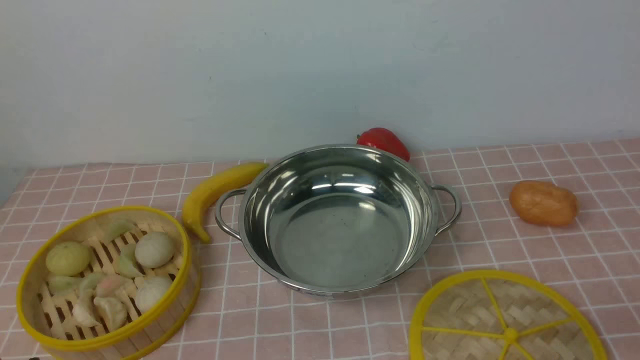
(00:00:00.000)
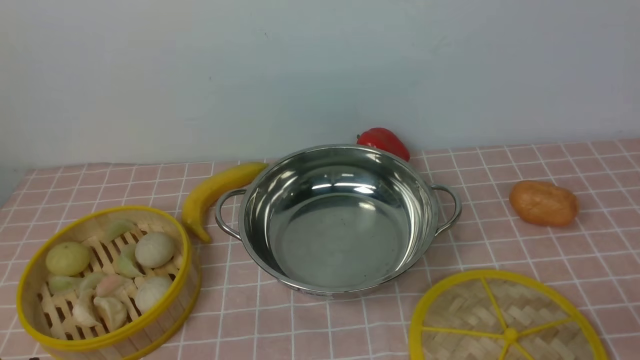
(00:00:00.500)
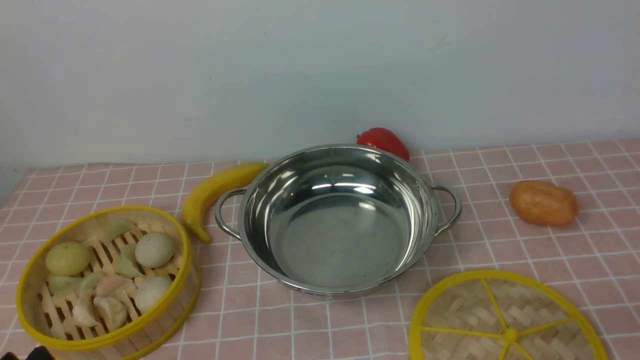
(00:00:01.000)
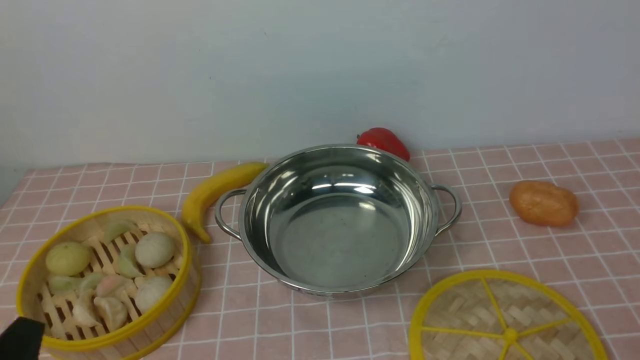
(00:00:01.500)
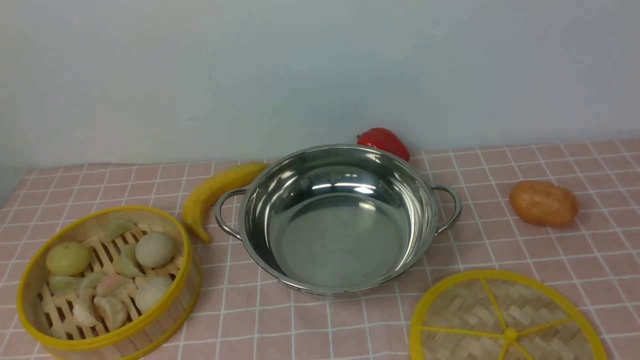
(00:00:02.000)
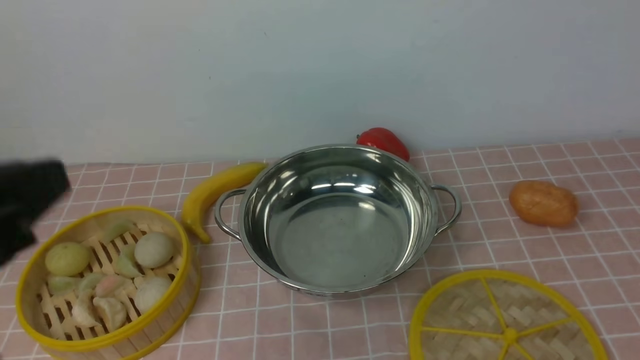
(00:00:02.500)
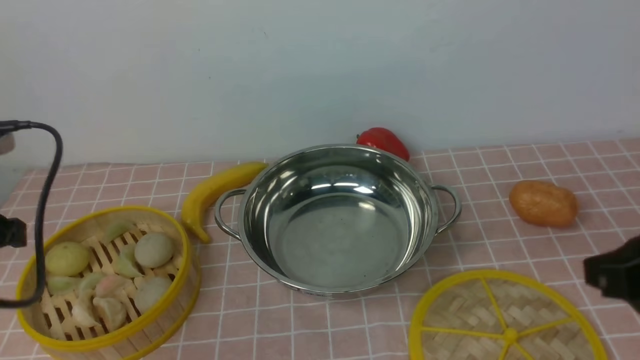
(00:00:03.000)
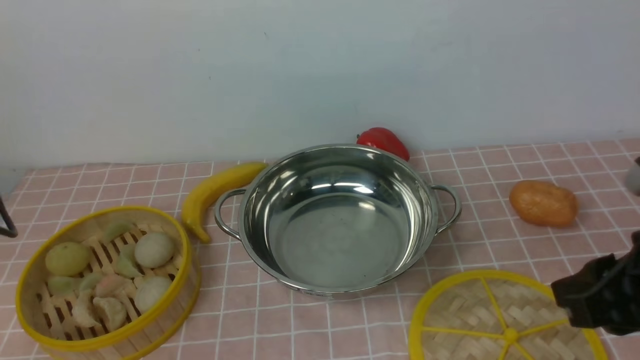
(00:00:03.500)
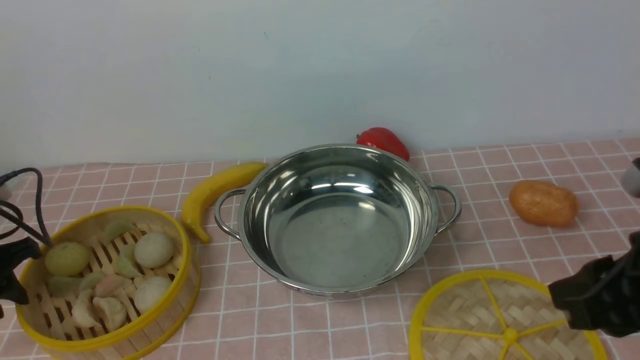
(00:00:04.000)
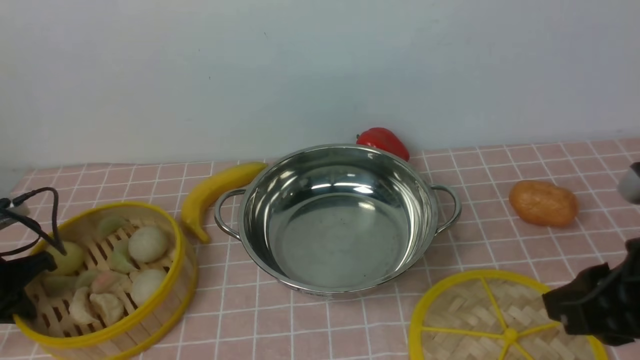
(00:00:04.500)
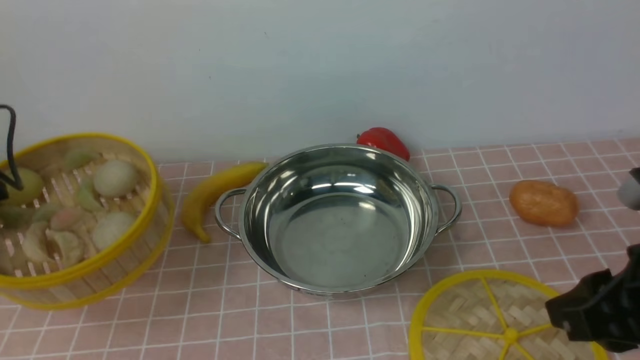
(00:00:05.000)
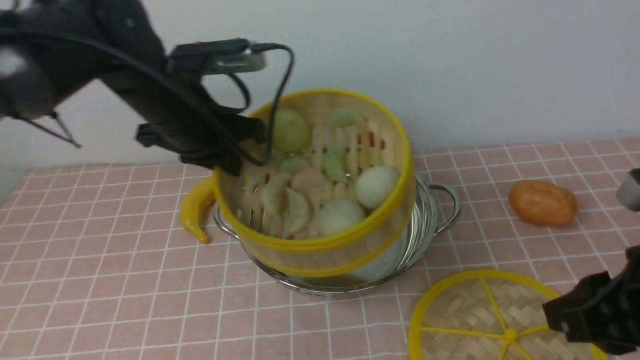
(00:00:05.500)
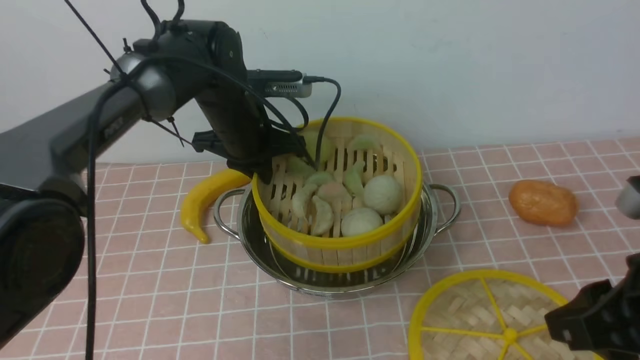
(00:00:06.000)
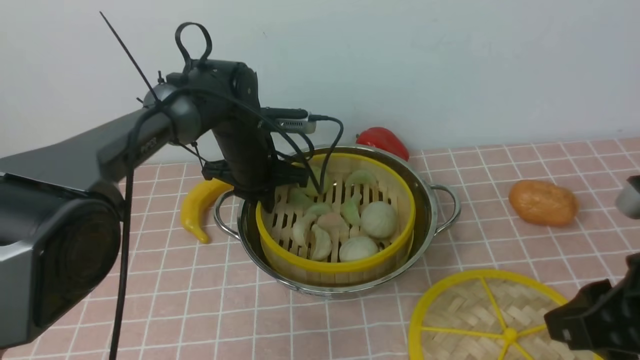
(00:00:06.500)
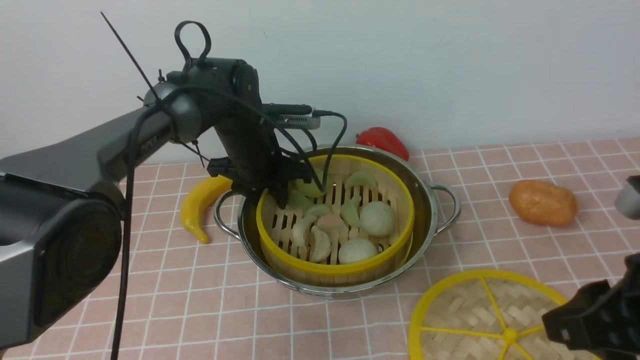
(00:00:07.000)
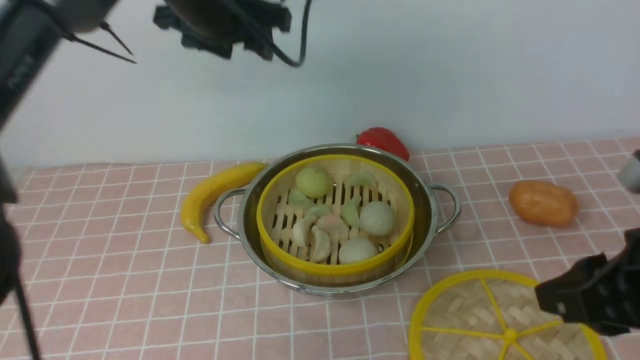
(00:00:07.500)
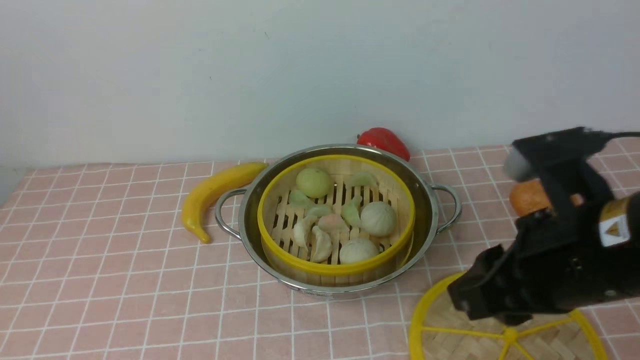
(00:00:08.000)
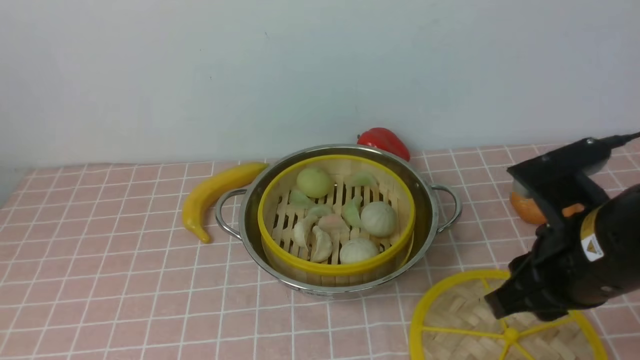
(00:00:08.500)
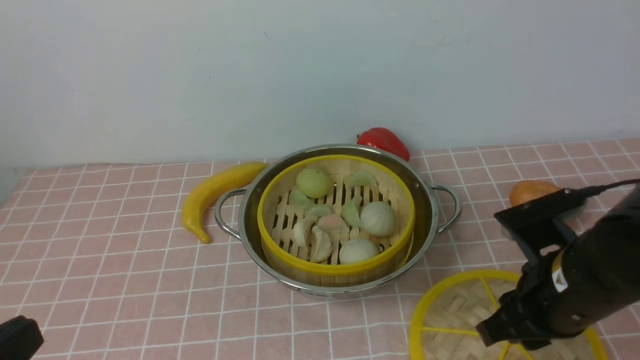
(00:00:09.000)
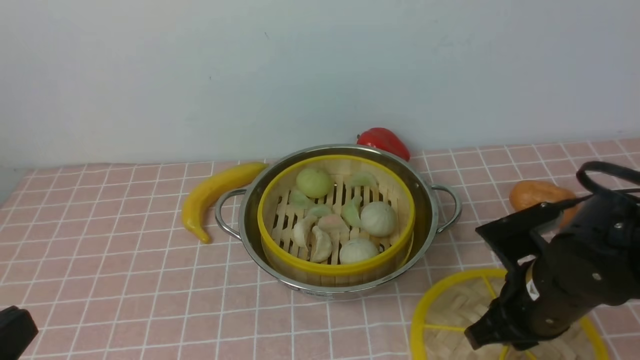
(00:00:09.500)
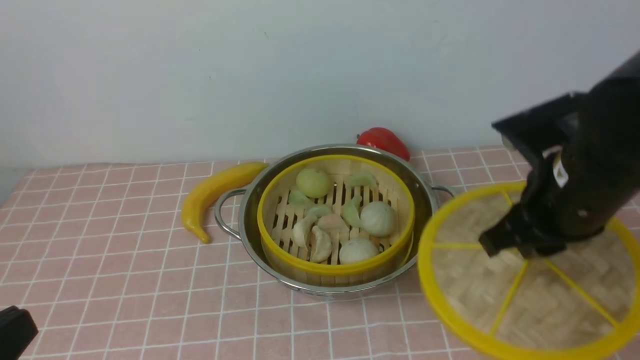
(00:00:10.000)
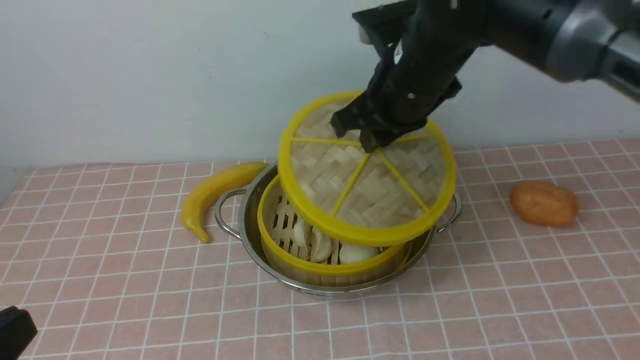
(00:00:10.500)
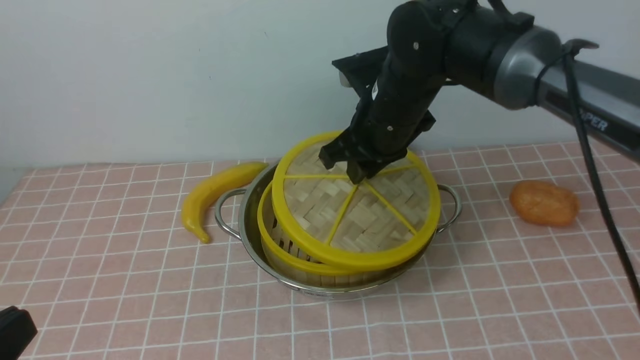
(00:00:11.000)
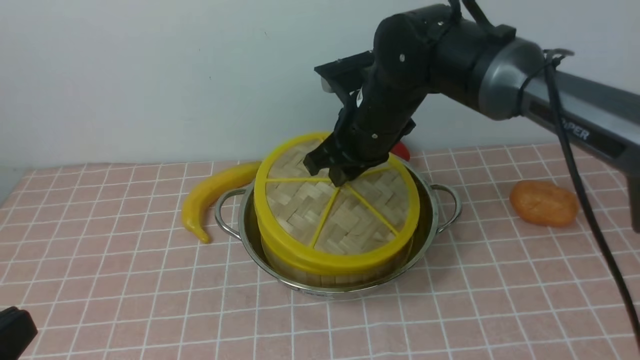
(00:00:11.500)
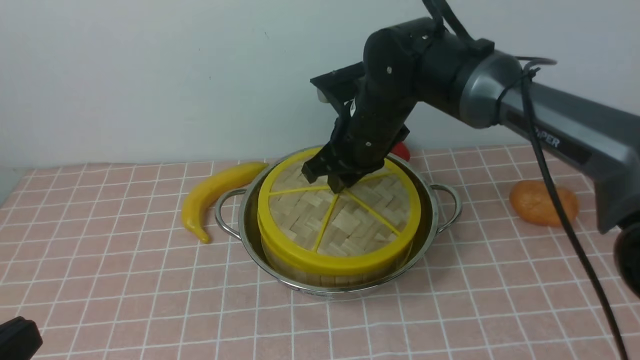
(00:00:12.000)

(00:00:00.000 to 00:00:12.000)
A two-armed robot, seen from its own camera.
Task of the whole recording: place the steamer in the pot on the pink tablecloth, and put the lid on the steamer.
Step, 00:00:00.000 - 00:00:04.500: use the left arm to lift the steamer closest to it.
Step, 00:00:05.000 - 00:00:07.000: use the left arm to put the steamer into the iron steamer pot in the middle.
Step, 00:00:07.500 - 00:00:09.500: use the right arm to lift the lid of the steamer.
00:00:02.000 - 00:00:04.000: The left gripper travels forward, downward and to the left by about 35 cm. Meanwhile the right gripper heads forward, to the left and downward, covering roughly 15 cm.
00:00:04.000 - 00:00:06.000: The left gripper is displaced to the right and forward by approximately 35 cm, and closes.
00:00:06.000 - 00:00:08.000: The right gripper travels to the left by roughly 5 cm; the left gripper travels upward and backward by approximately 50 cm, and opens, then closes once more.
00:00:08.000 - 00:00:10.000: The right gripper moves forward, some 10 cm, and reaches roughly 10 cm downward, then returns. Meanwhile the left gripper moves downward and backward, about 30 cm.
00:00:10.000 - 00:00:12.000: The right gripper heads forward and to the left, covering some 20 cm.

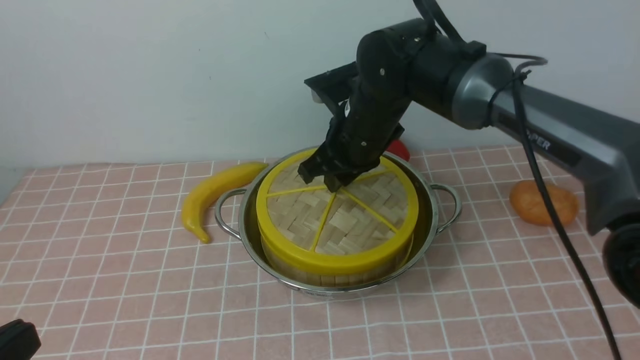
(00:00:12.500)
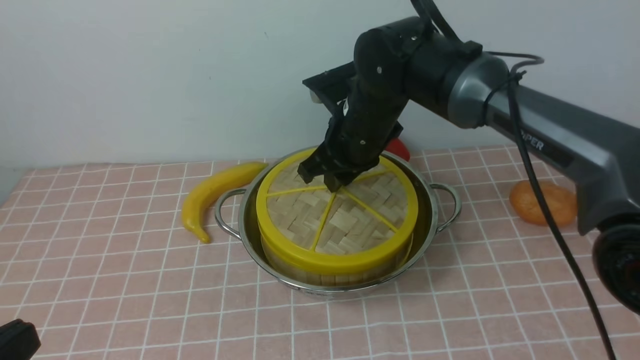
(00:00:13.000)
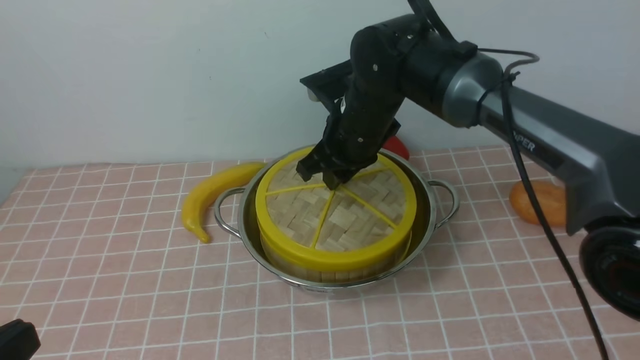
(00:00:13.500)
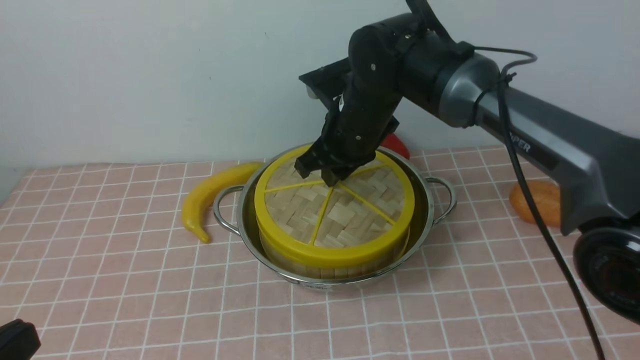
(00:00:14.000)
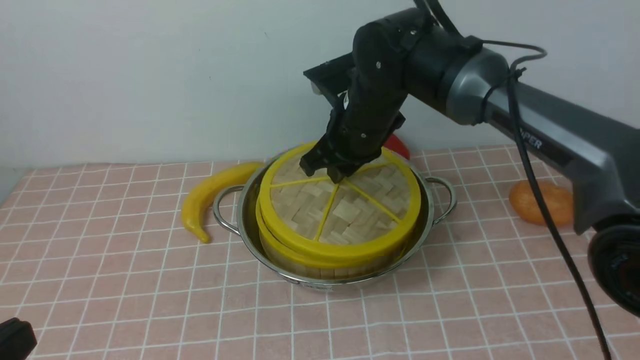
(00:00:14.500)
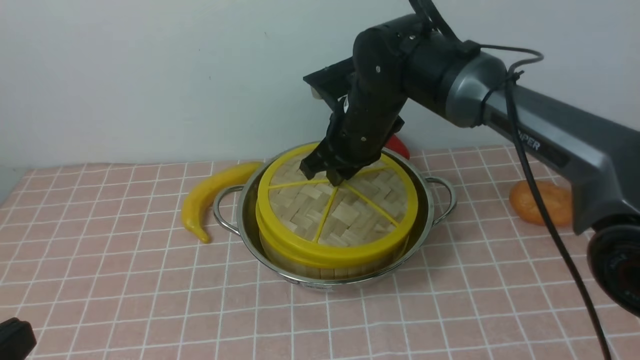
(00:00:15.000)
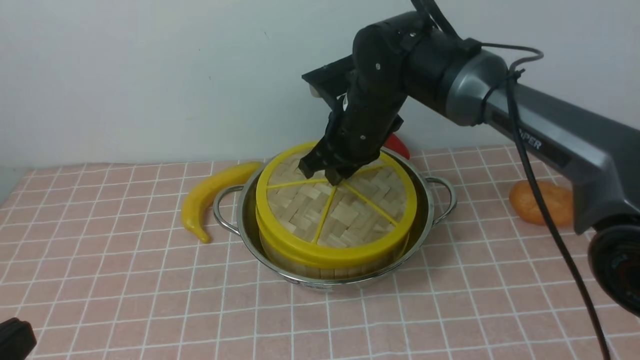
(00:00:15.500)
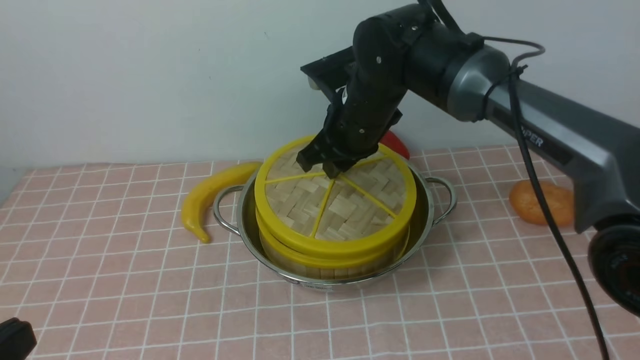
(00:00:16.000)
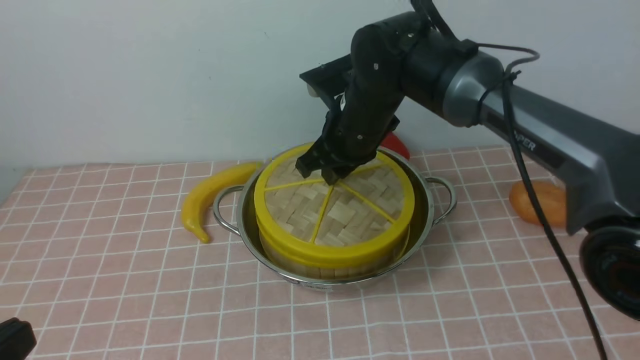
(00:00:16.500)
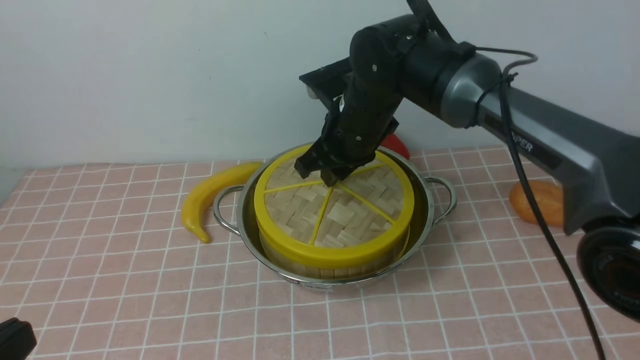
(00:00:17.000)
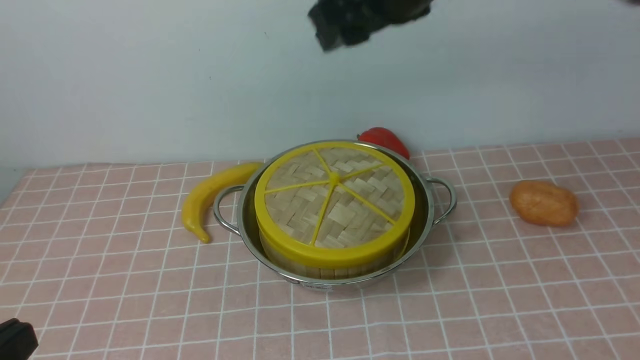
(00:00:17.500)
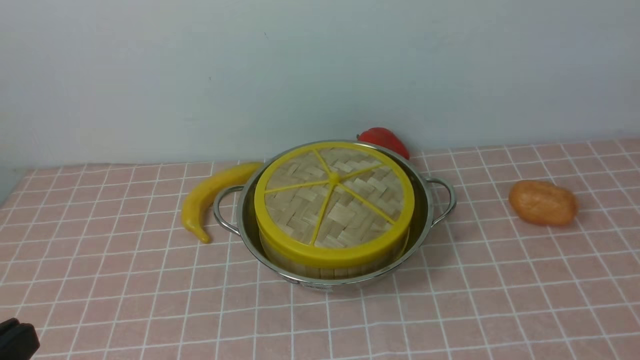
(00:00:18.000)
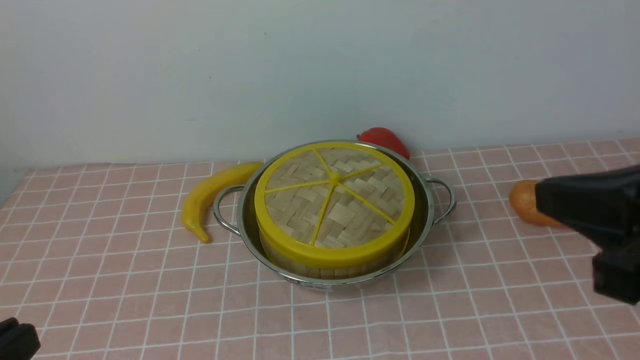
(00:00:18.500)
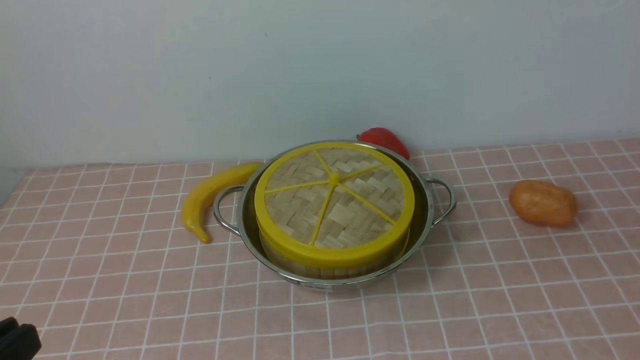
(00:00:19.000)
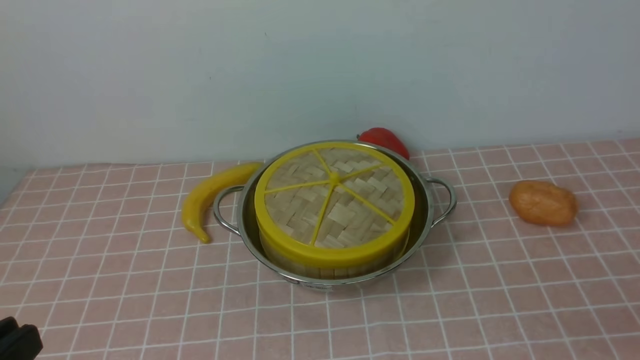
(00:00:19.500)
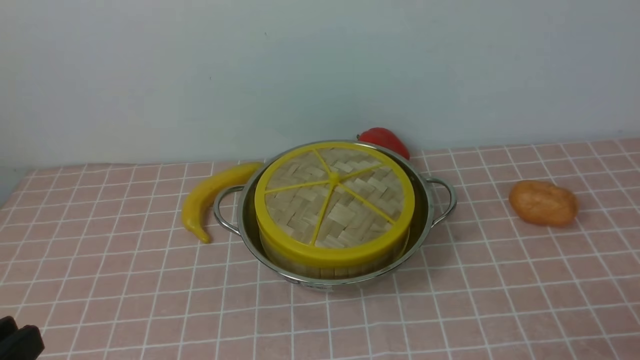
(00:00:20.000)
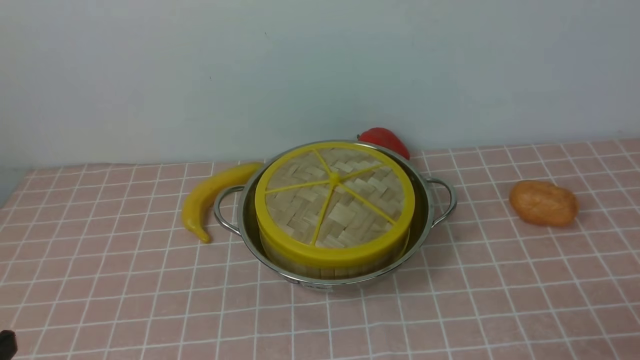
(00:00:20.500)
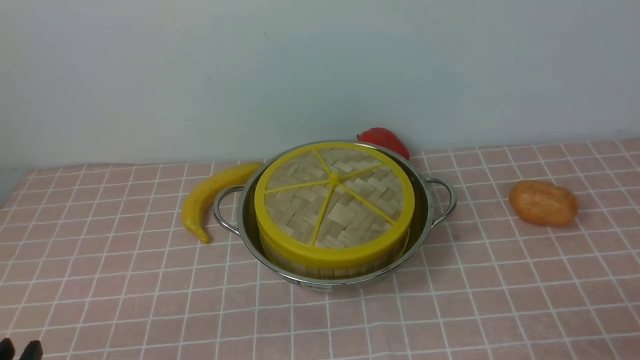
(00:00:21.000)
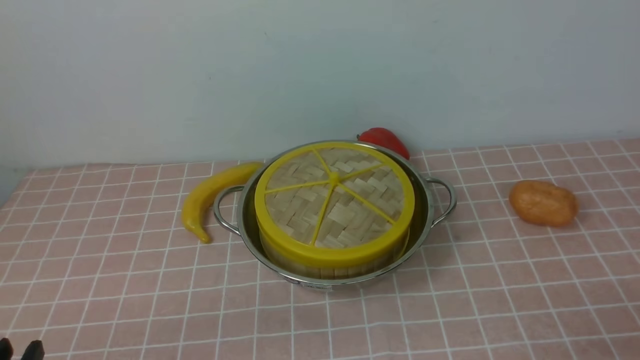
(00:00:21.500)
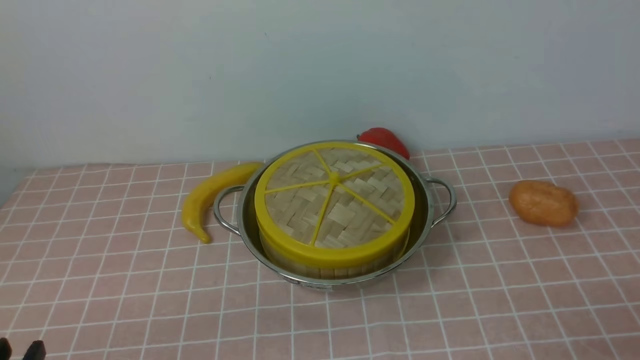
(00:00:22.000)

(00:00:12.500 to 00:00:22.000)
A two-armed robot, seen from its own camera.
Task of the whole recording: place the steamer in the pot on the pink tablecloth, and put the lid on the steamer.
Step, 00:00:12.500 - 00:00:17.000: use the right arm to place the steamer lid on the steamer.
00:00:12.500 - 00:00:14.500: Neither gripper changes place.
00:00:14.500 - 00:00:16.500: Both grippers stay about where they are.
00:00:16.500 - 00:00:18.000: The right gripper goes about 40 cm backward, upward and to the right, and closes up.
